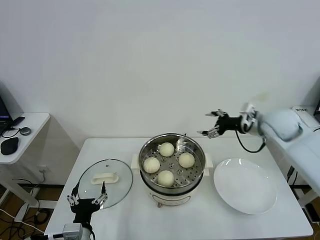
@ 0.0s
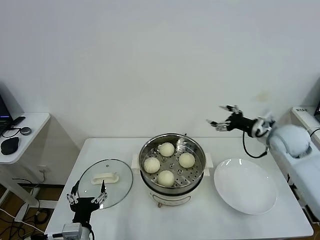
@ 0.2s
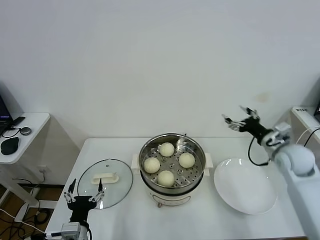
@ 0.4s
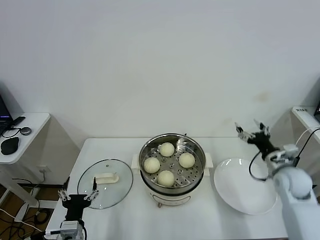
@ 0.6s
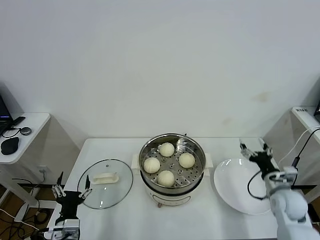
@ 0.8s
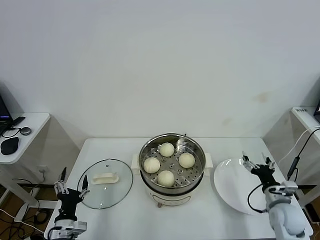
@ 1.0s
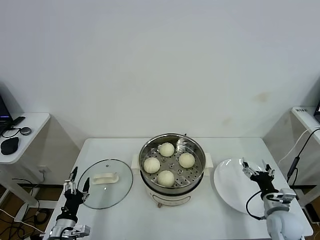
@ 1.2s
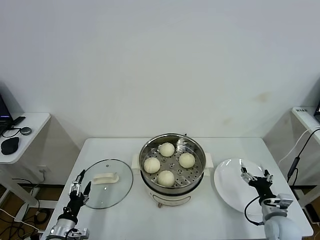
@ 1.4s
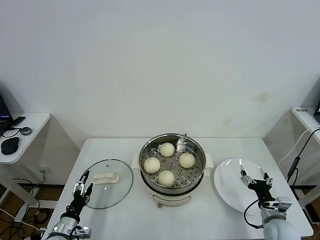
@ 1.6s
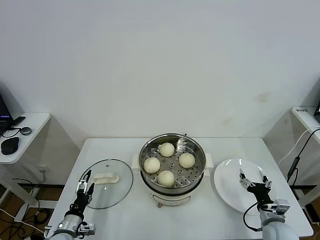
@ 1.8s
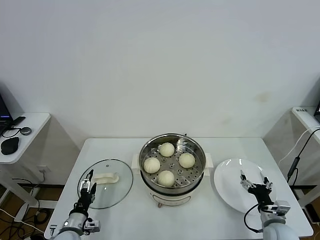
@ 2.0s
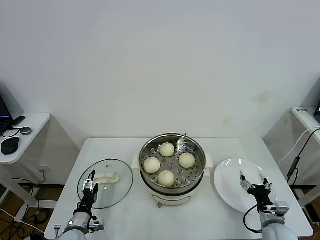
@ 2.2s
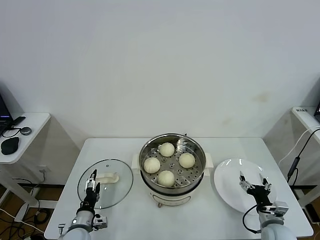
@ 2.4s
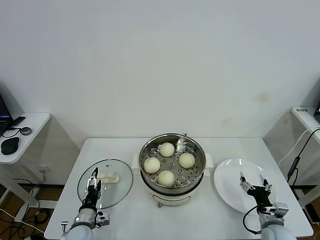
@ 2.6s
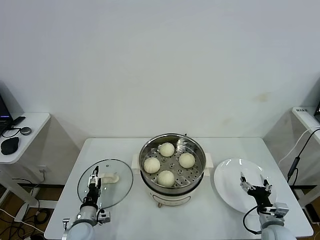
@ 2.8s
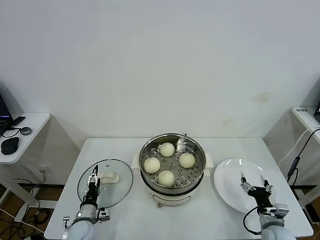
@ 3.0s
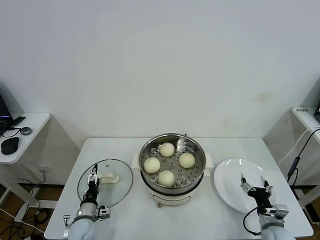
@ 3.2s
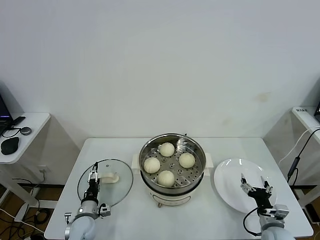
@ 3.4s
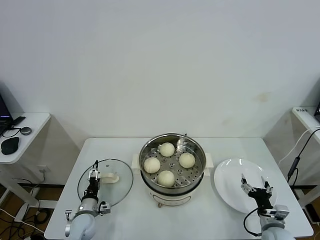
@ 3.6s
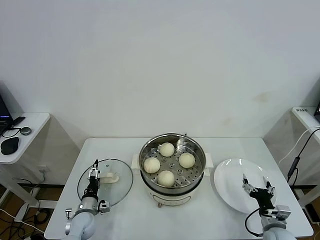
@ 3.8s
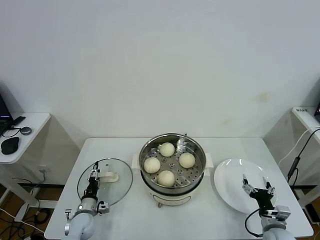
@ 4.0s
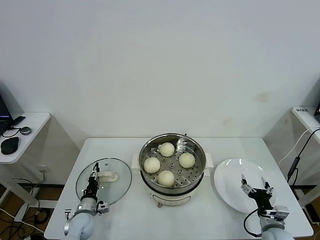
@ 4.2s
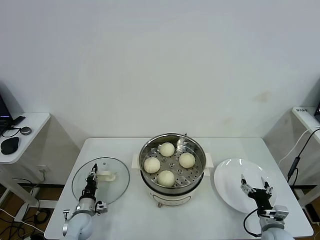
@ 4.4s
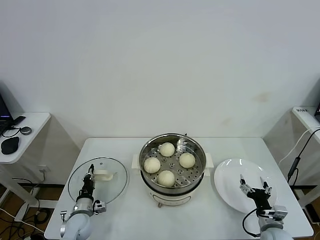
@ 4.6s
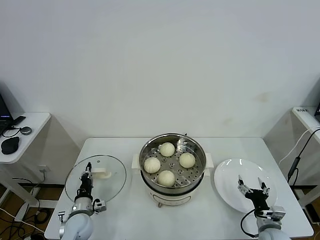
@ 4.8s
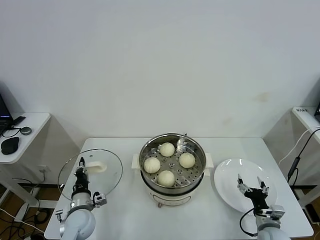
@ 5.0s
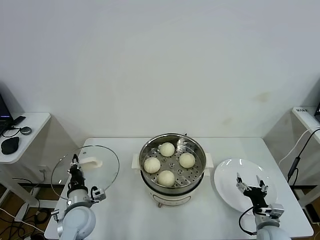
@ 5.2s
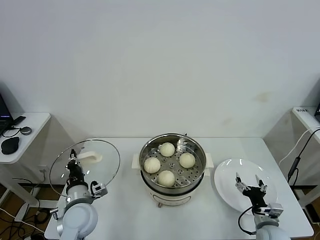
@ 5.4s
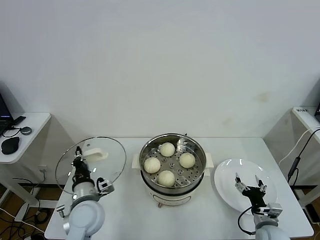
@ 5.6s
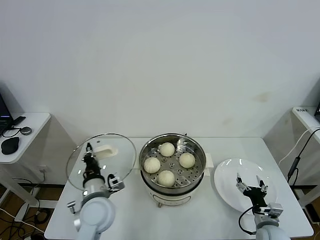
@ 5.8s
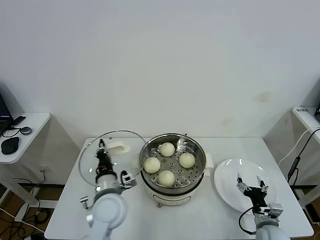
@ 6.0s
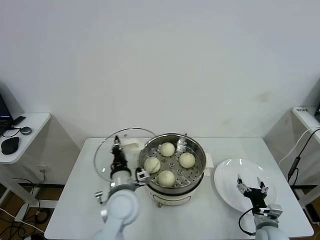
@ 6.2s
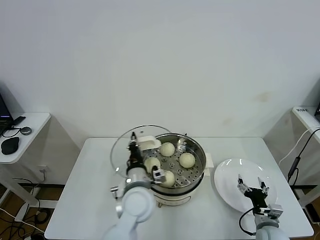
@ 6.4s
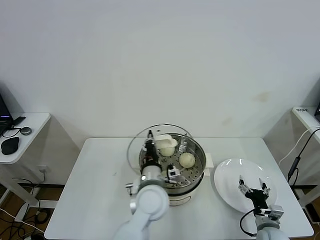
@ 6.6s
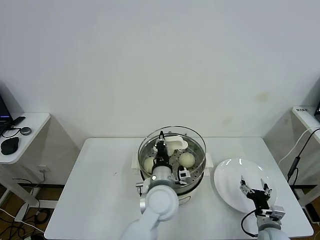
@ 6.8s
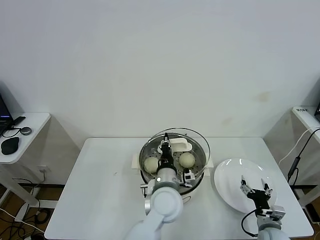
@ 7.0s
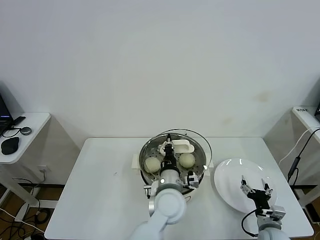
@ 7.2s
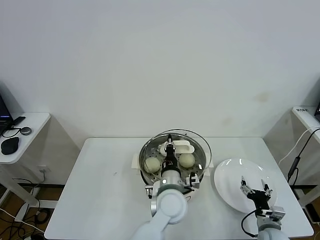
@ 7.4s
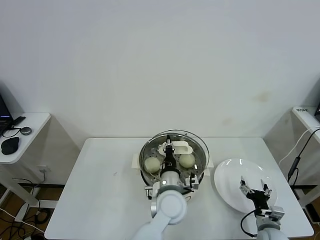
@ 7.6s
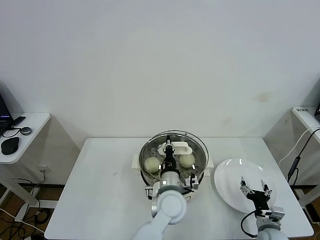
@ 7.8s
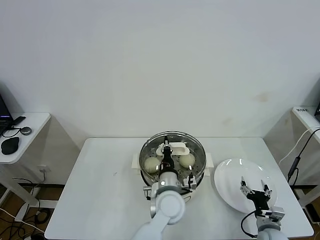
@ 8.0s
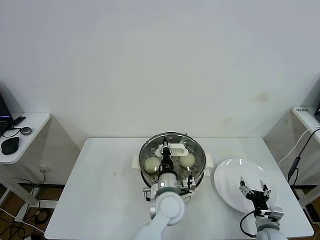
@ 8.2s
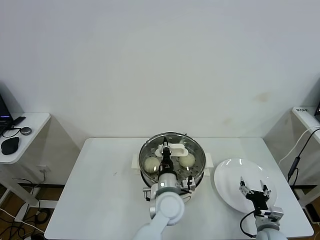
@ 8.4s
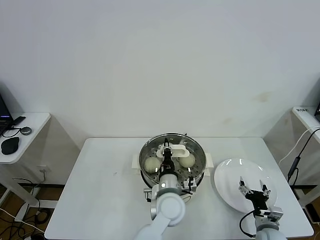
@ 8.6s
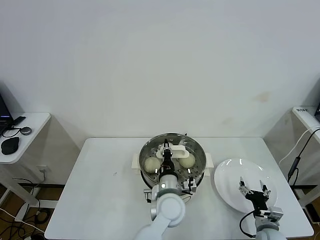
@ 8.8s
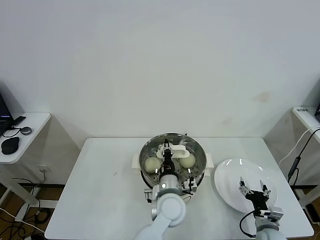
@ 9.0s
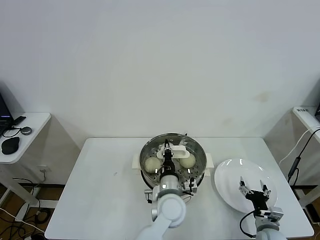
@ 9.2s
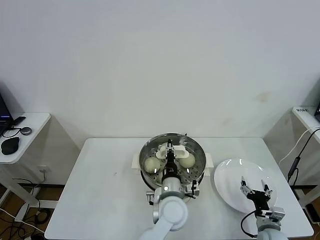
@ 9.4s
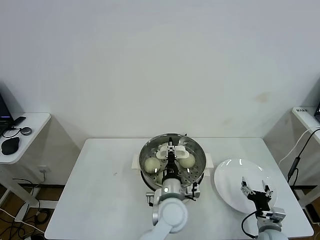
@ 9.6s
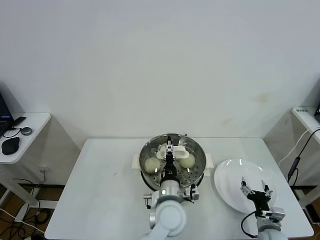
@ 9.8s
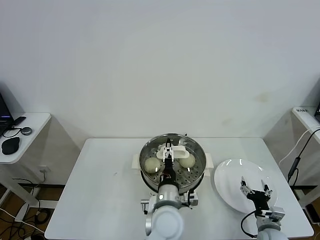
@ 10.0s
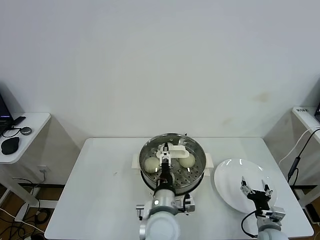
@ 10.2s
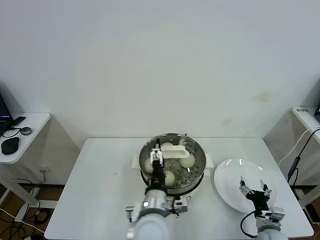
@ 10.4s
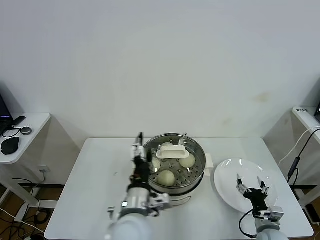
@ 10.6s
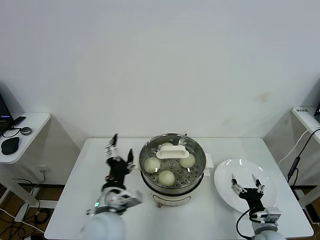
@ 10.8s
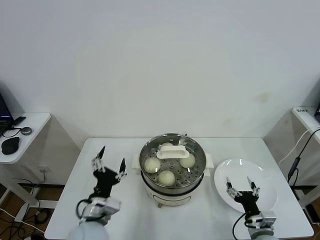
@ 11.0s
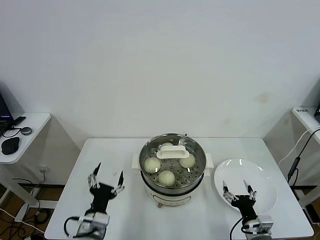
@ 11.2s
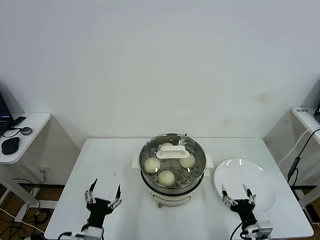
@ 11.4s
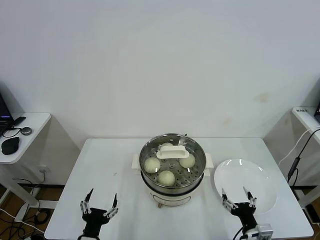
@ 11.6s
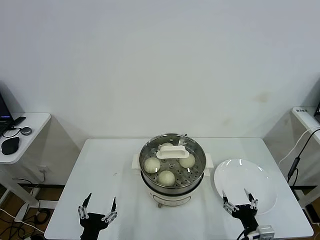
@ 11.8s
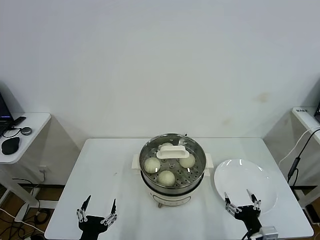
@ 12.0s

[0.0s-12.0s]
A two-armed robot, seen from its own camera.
Task of the whole recording: take steamed baozi put them in steamer.
Step, 0.0s to 4.6s: Grasp the pot lid with left gripper.
Step, 4.8s to 9.6s: Place the pot lid on the steamer with left gripper.
0.0s to 1.6s: The right gripper travels downward and backward by about 35 cm. Meanwhile the left gripper goes approximately 15 cm to the left, downward and forward.
1.6s to 3.0s: The left gripper is displaced forward and to the right by approximately 10 cm.
3.0s to 4.4s: The left gripper closes up.
4.4s to 6.0s: The left gripper moves upward and to the right, roughly 25 cm.
6.0s to 7.6s: The left gripper travels to the right by approximately 20 cm.
7.6s to 9.0s: The grippers make only small movements.
9.0s to 10.4s: The left gripper heads backward, covering roughly 5 cm, and opens.
10.4s to 12.0s: The left gripper moves to the left and backward, about 25 cm, while the right gripper goes some 15 cm backward, upward and to the left.

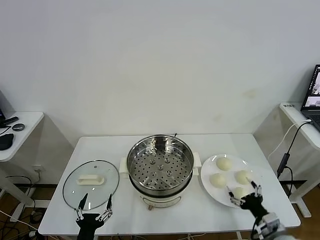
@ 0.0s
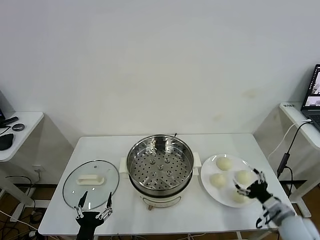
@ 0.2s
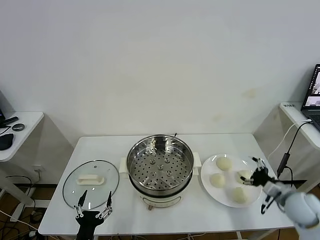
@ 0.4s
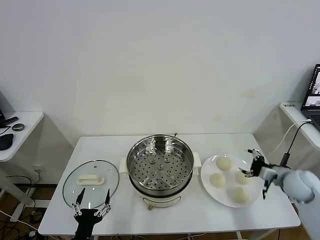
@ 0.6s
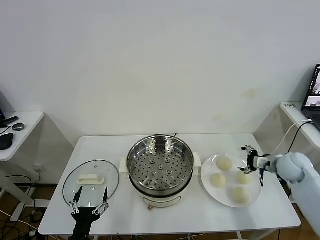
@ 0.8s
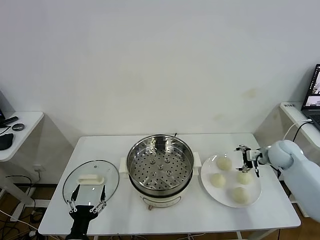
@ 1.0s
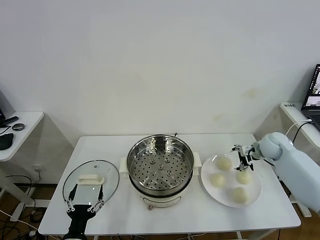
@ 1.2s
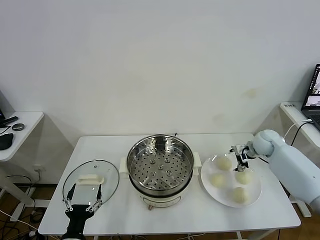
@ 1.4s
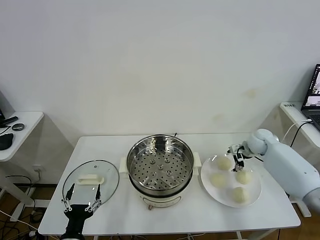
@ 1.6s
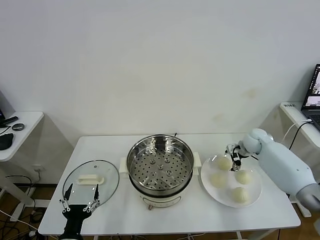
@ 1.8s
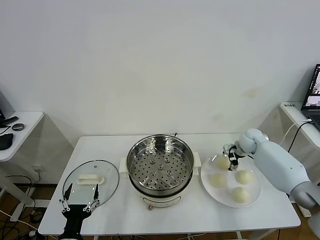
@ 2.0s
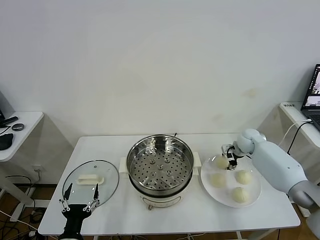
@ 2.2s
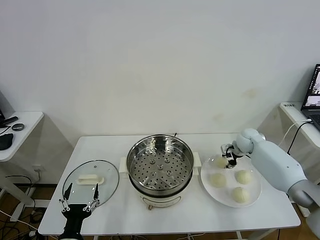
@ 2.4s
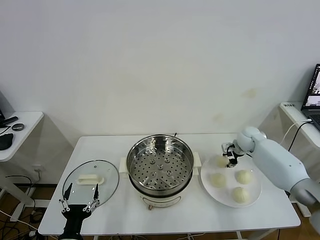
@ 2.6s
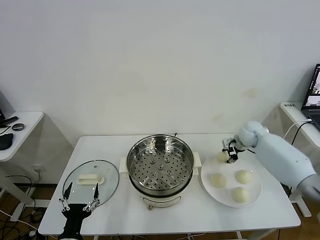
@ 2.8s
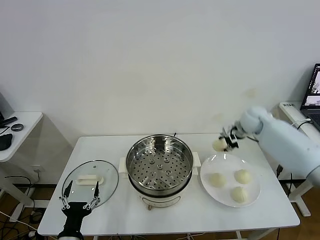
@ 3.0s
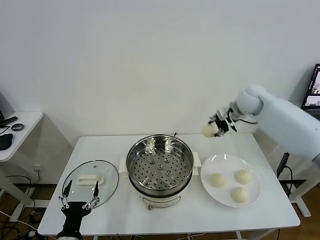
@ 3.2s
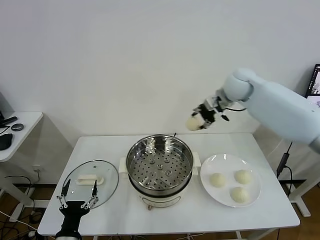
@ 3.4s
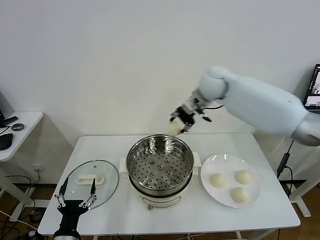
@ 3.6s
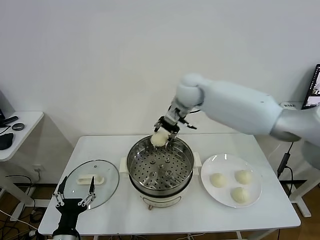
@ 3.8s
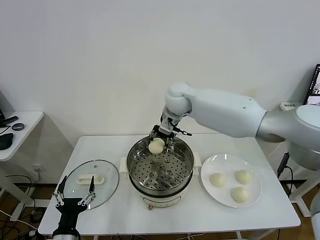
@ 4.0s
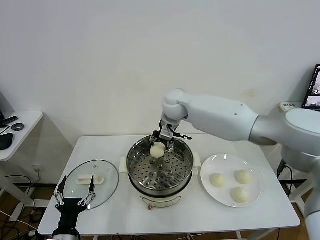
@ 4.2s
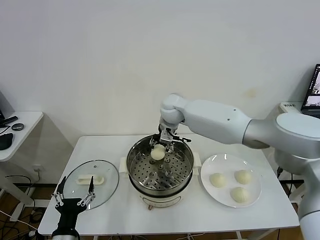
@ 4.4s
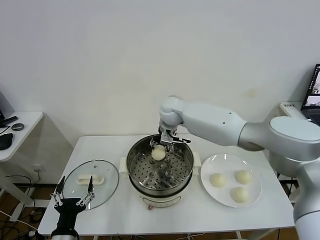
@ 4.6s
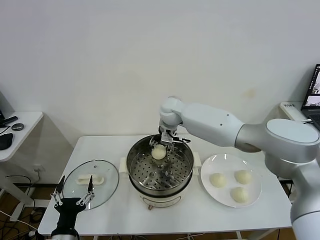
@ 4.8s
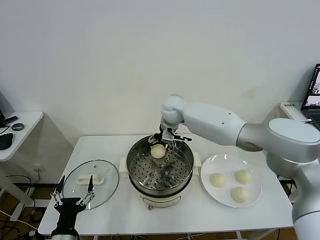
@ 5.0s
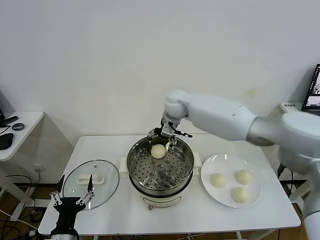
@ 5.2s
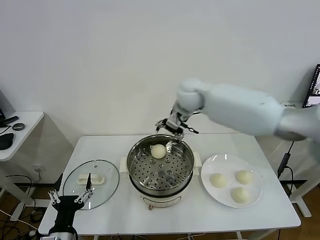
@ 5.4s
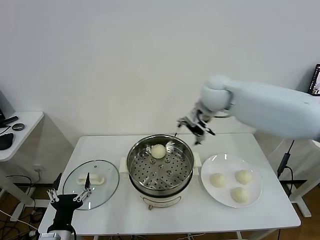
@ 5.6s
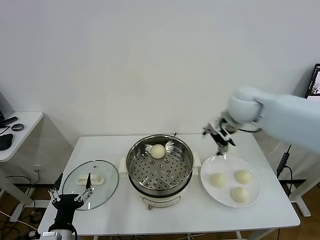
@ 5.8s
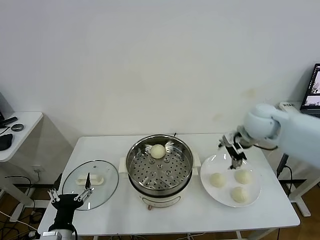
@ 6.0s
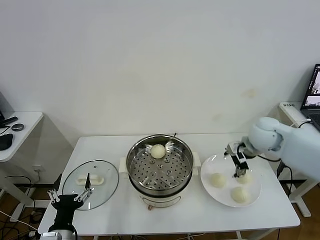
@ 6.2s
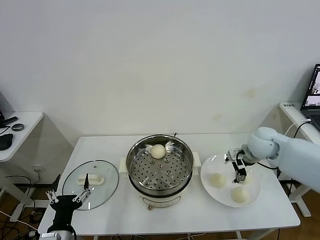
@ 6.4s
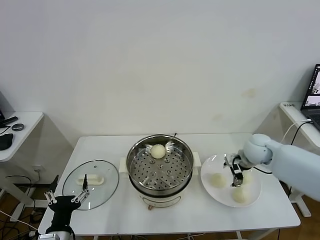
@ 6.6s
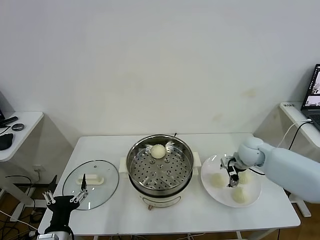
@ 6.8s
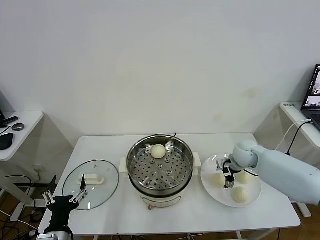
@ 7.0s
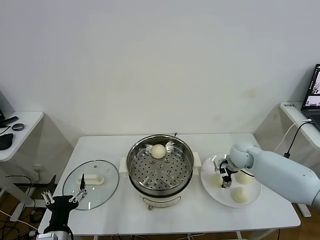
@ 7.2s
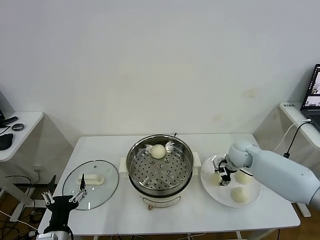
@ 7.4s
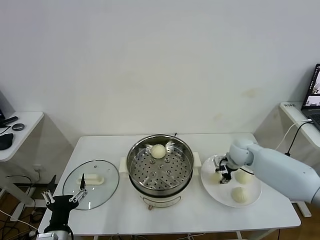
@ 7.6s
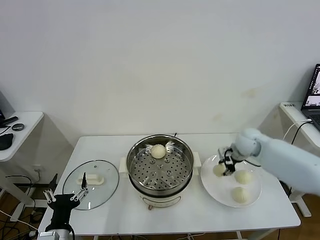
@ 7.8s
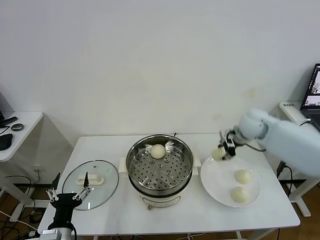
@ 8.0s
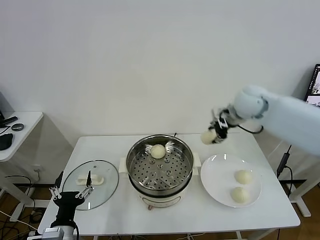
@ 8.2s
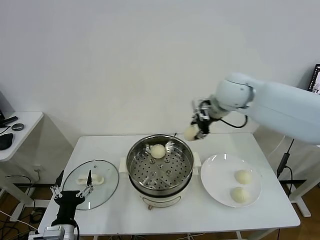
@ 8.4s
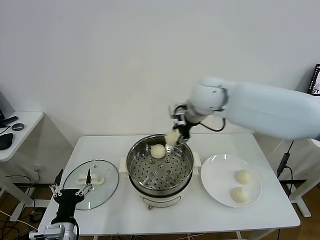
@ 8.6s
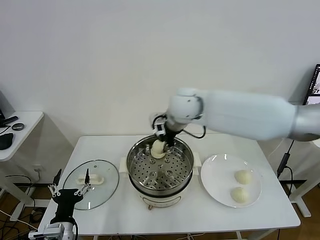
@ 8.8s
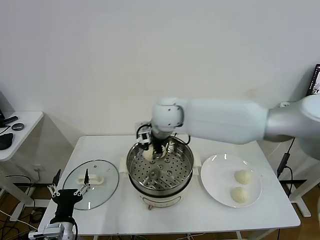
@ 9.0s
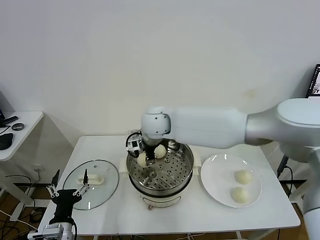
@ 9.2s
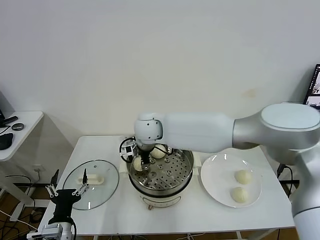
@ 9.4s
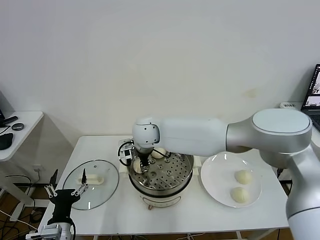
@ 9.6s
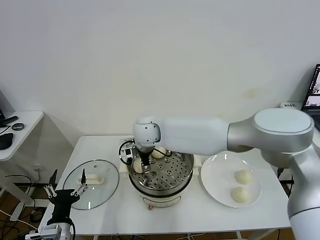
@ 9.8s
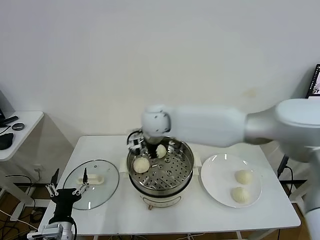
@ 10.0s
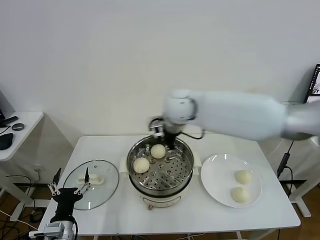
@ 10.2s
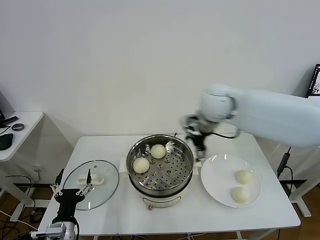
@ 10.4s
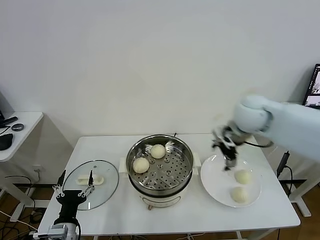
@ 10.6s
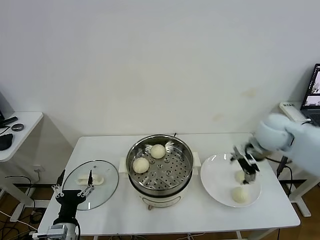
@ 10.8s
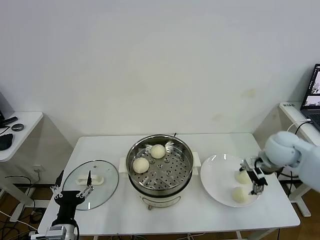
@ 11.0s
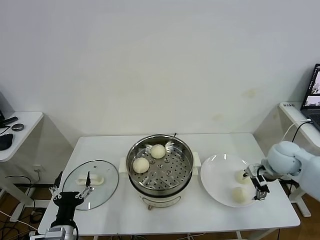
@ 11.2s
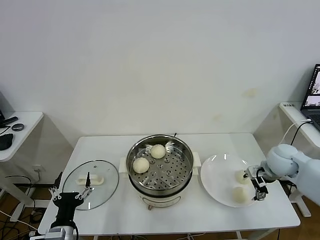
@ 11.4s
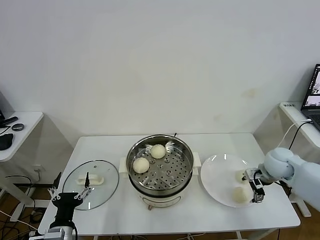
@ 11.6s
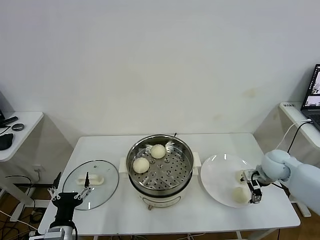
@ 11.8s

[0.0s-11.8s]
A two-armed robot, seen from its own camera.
Task of the whole recording: take steamed baozi put them in steamer.
Step, 0.0s to 2.4s: Grasp the baozi in the plate with right gripper.
Step, 2.6s to 5.0s: Place the baozi on the steamer with right gripper.
Step, 5.4s to 7.4s: Grasp the baozi in the plate with right gripper.
Step, 7.6s to 9.8s: Place the baozi on the steamer with right gripper.
1.4s to 3.0s: The right gripper goes approximately 10 cm upward and to the left, and closes its fingers.
3.0s to 4.4s: The right gripper goes roughly 30 cm to the left.
4.4s to 6.0s: The right gripper travels to the right by roughly 25 cm, and opens its fingers.
6.0s to 7.4s: The right gripper travels downward by about 20 cm, and closes its fingers.
7.4s to 8.8s: The right gripper moves to the left and upward, approximately 35 cm.
8.8s to 10.4s: The right gripper heads to the right, covering roughly 10 cm, and opens up.
10.4s to 11.8s: The right gripper moves to the right and downward, about 30 cm.
